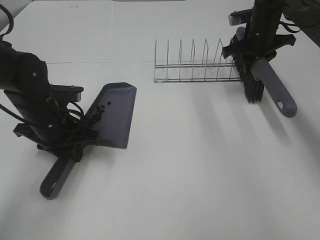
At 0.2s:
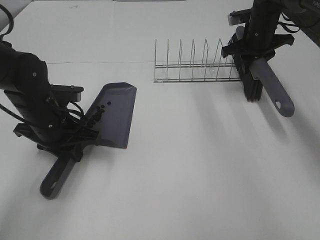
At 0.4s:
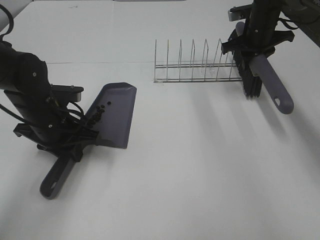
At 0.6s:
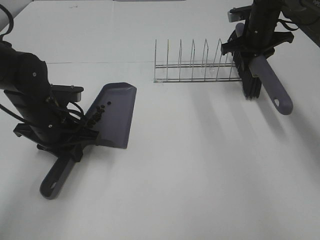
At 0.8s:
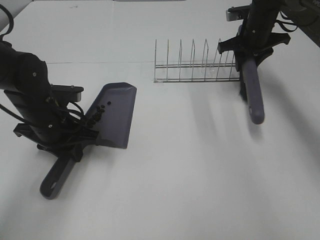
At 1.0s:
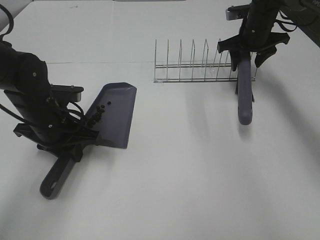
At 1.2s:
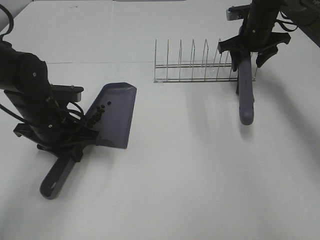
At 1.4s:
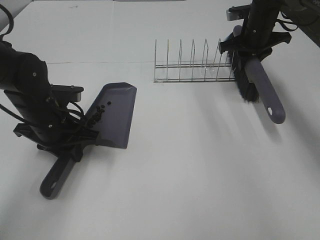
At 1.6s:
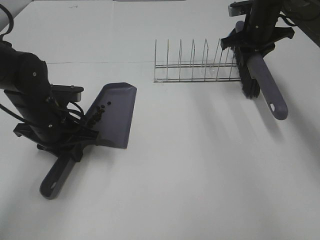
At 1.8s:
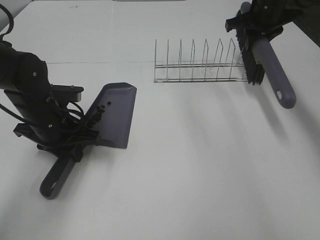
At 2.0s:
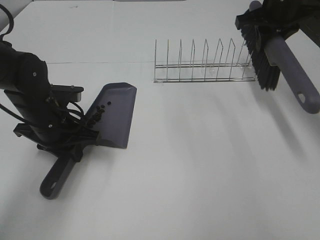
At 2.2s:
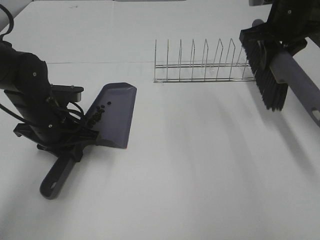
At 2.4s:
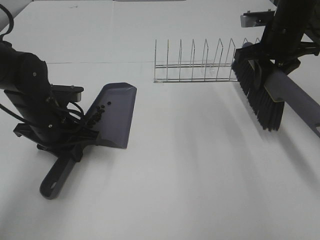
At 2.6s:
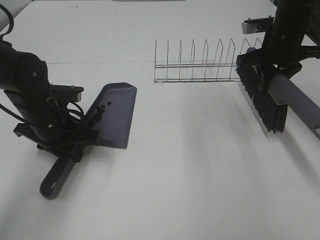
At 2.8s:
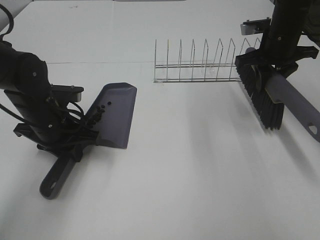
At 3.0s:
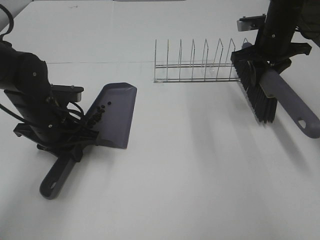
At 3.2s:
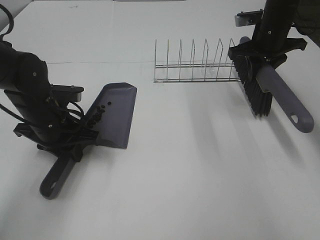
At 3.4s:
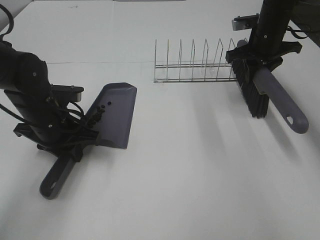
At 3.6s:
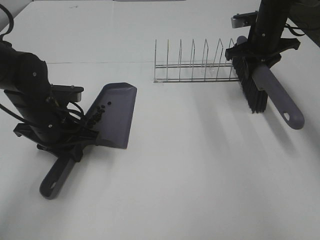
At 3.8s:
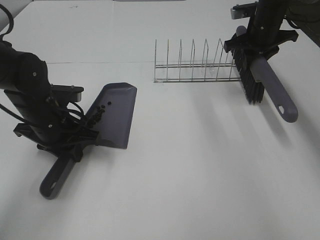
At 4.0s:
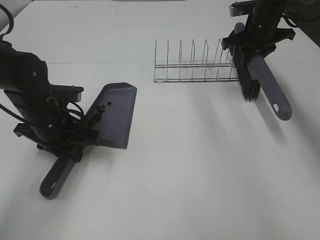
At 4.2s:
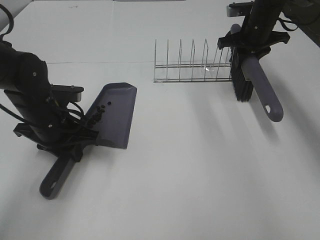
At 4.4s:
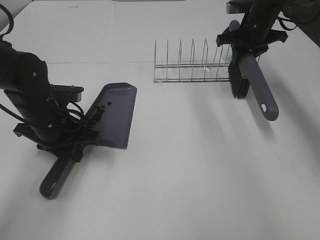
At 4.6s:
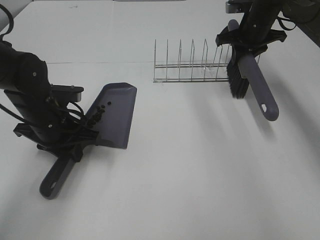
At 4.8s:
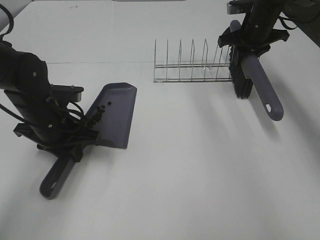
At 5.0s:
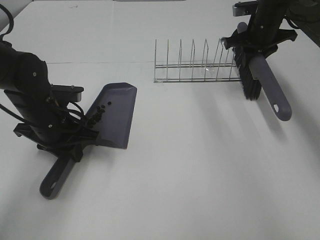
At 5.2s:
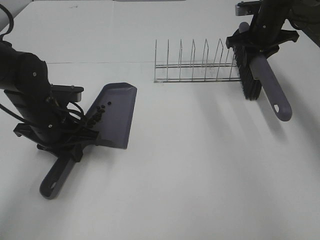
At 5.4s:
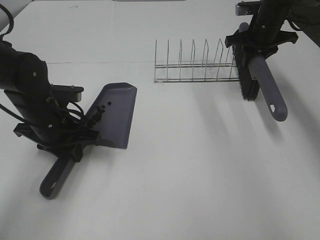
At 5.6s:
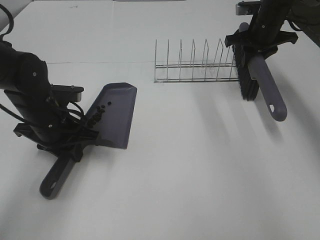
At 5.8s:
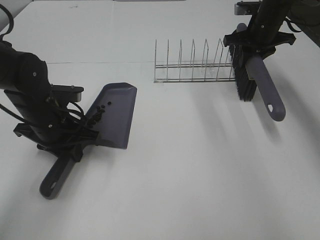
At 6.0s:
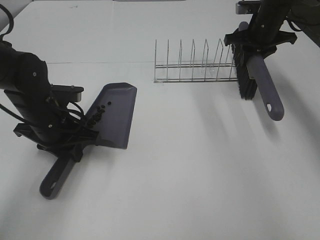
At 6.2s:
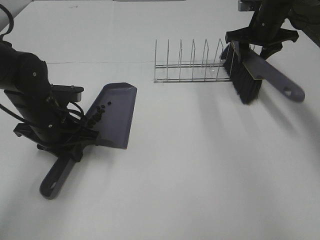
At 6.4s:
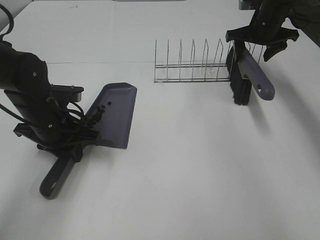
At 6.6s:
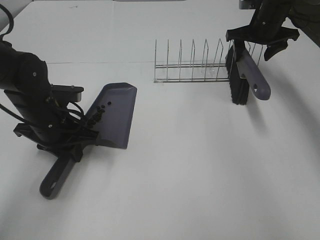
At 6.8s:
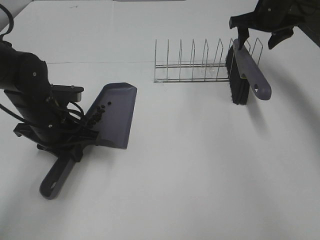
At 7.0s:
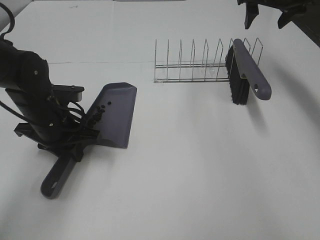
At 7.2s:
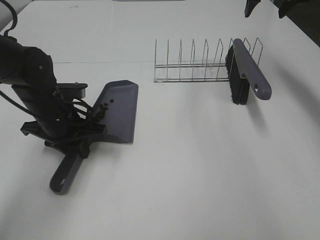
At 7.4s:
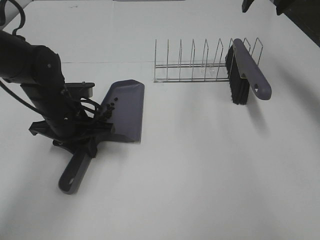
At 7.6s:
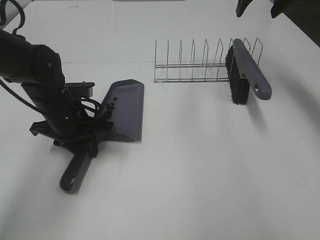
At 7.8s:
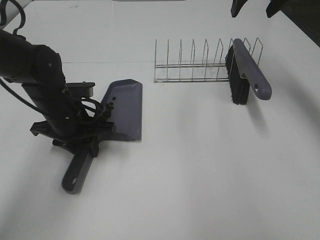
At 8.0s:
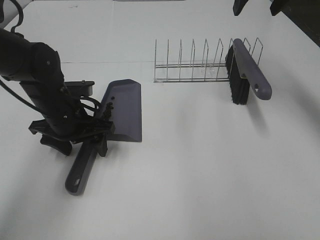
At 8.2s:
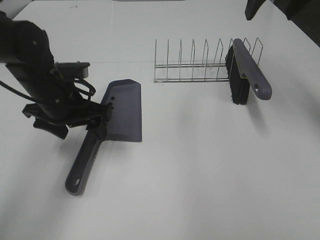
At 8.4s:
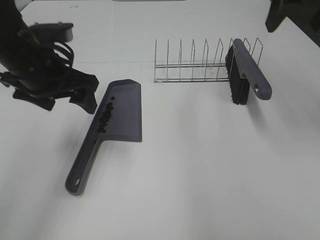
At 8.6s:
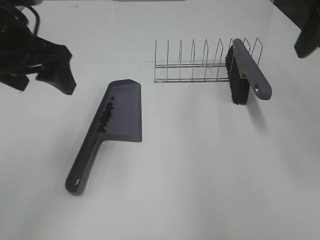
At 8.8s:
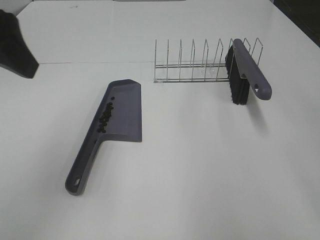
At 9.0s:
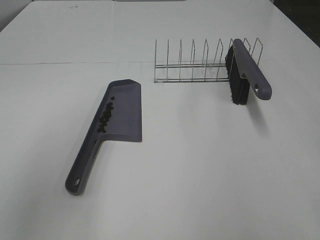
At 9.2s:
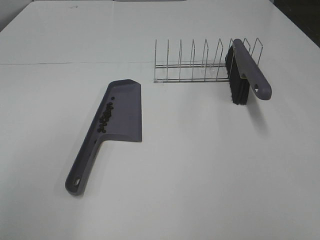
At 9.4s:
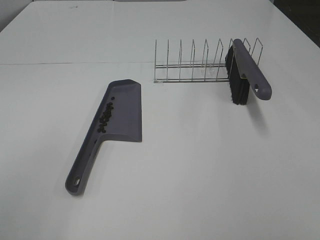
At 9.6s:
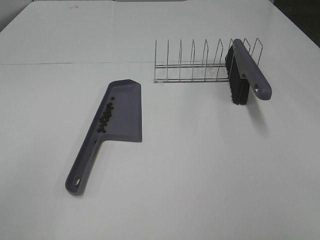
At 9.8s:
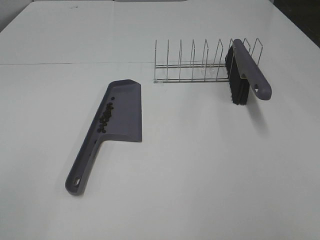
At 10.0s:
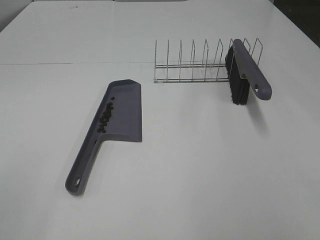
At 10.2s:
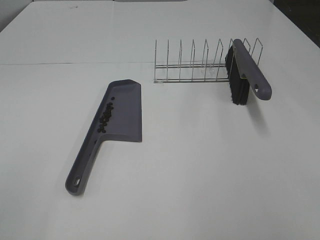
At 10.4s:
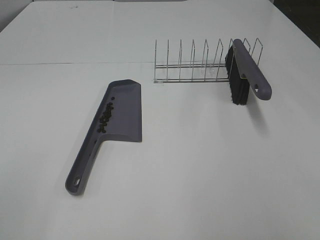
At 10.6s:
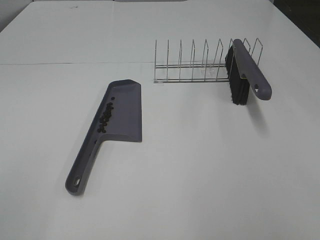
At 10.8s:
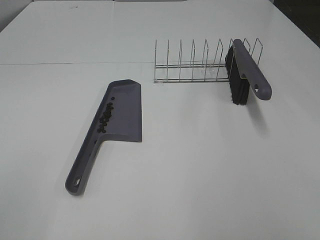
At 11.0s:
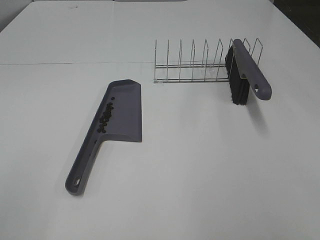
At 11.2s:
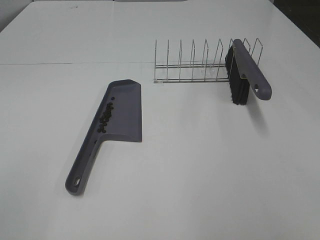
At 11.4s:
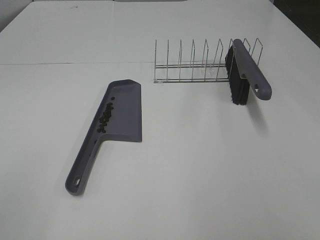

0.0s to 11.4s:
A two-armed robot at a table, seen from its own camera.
Task of the whole recording: Sweep Coffee Bean.
Step, 0.0s to 6.6s: Right hand:place the broom on the rack.
Step, 6.8s to 8.0s: Left hand:place the dustpan on the table.
0.0s to 1.4s: The right gripper opens, then closes again.
1.4s to 2.8s: The right gripper travels backward by roughly 10 cm.
2.8s to 4.2s: The right gripper moves forward, roughly 10 cm.
4.2s to 5.6s: There are only small adjustments of the grippers.
5.6s to 7.2s: The right gripper shifts some 10 cm upward, and opens up.
7.2s to 8.6s: The right gripper shifts about 25 cm backward, while the left gripper goes some 20 cm upward, and opens.
8.6s to 10.0s: The right gripper moves backward, approximately 25 cm. Meanwhile the left gripper moves backward and to the left, approximately 30 cm.

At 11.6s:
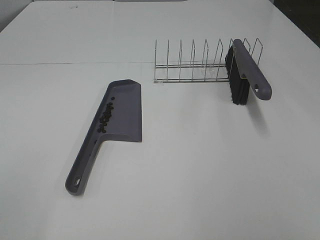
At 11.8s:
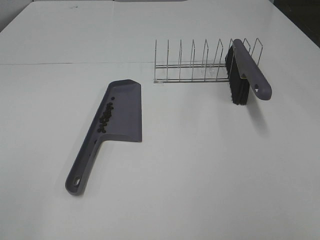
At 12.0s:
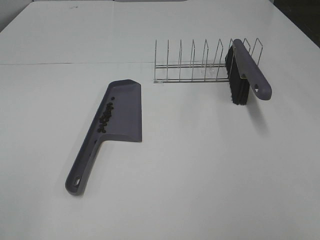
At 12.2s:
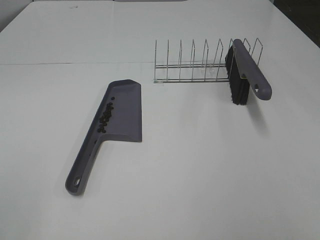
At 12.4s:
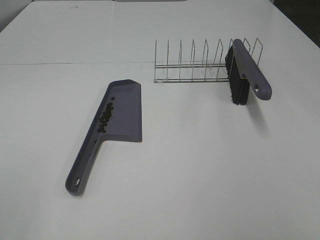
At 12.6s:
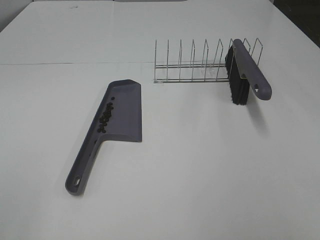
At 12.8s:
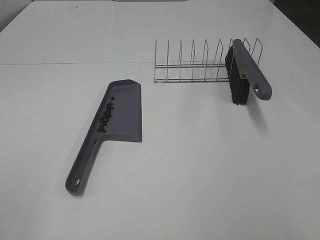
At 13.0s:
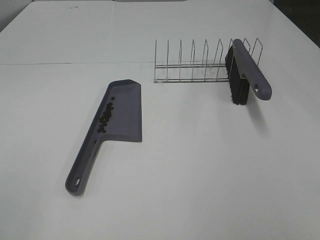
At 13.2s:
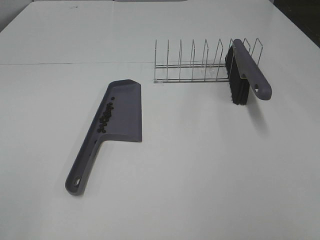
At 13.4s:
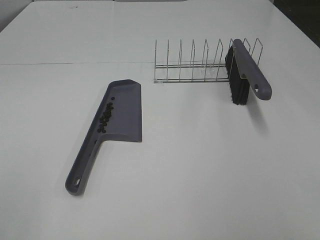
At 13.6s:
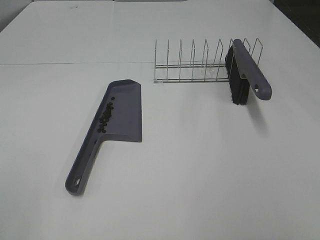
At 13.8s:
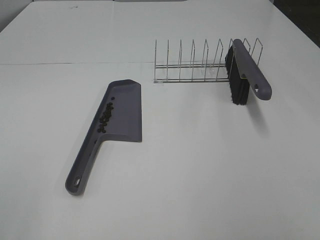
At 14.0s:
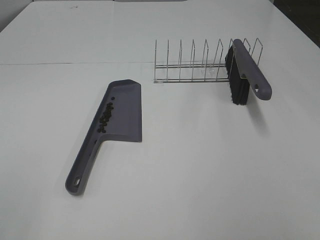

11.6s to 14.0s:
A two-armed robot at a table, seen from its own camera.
Task of the whole recording: Sweep Coffee Bean.
12.8s to 14.0s: Both grippers stay put.

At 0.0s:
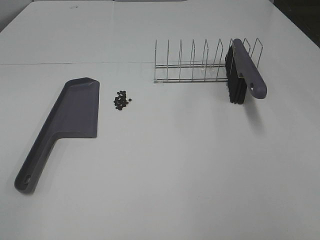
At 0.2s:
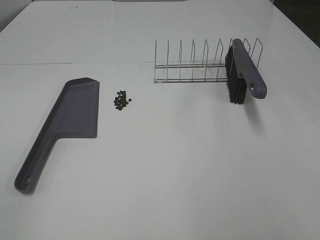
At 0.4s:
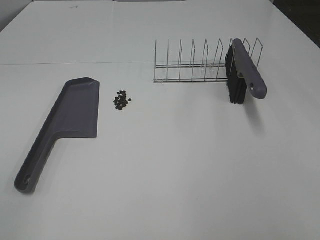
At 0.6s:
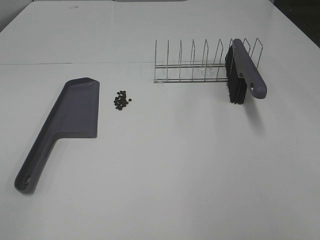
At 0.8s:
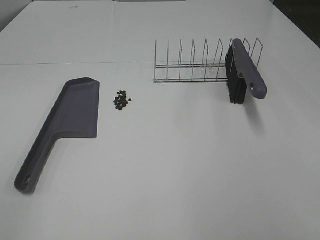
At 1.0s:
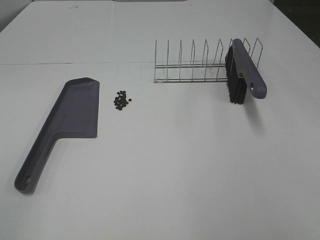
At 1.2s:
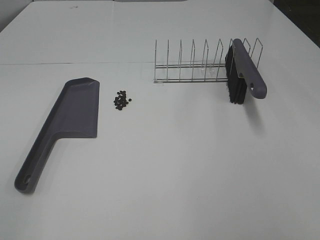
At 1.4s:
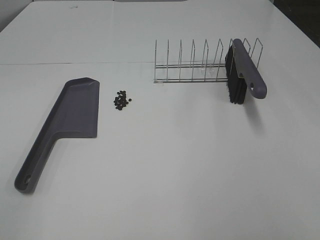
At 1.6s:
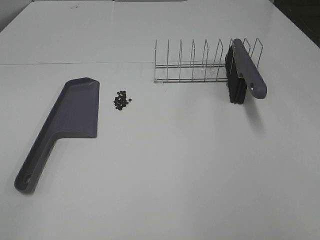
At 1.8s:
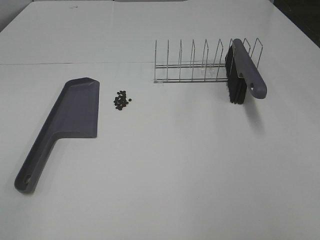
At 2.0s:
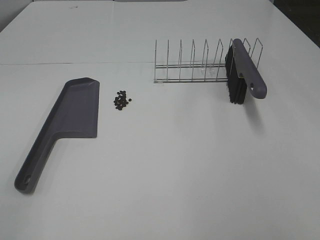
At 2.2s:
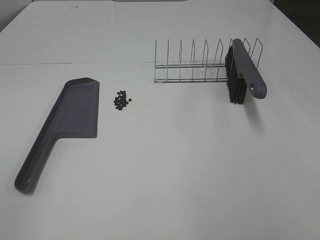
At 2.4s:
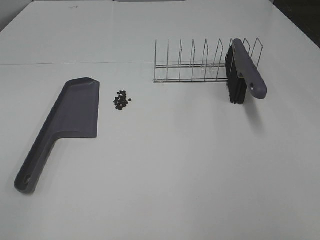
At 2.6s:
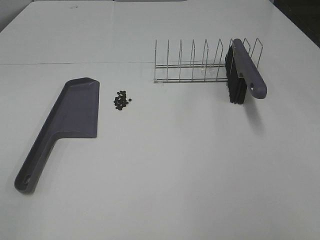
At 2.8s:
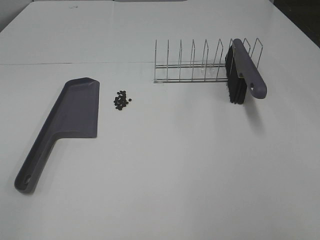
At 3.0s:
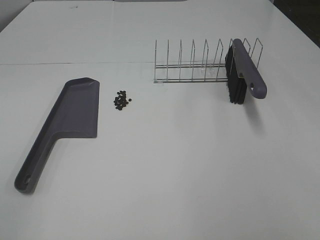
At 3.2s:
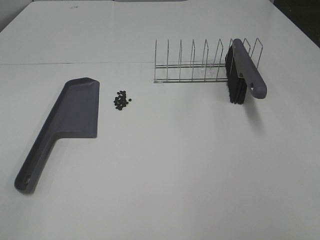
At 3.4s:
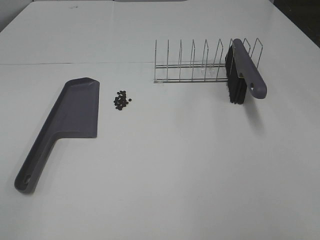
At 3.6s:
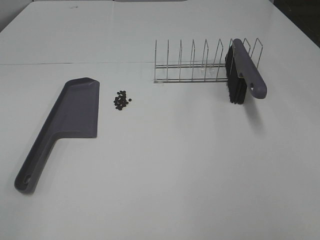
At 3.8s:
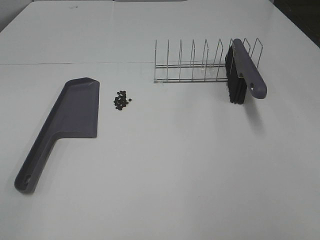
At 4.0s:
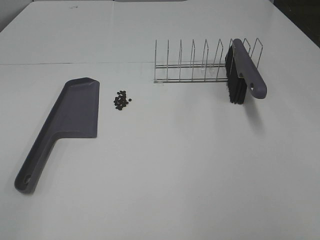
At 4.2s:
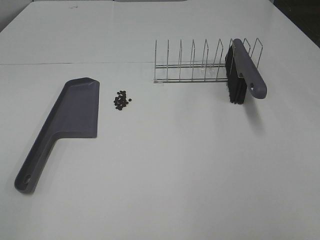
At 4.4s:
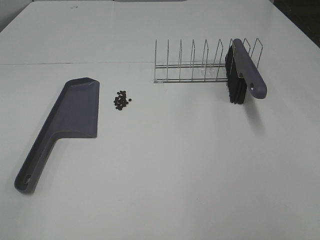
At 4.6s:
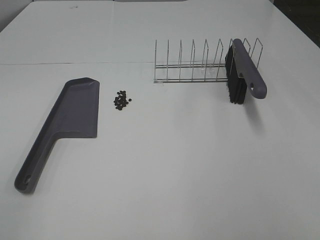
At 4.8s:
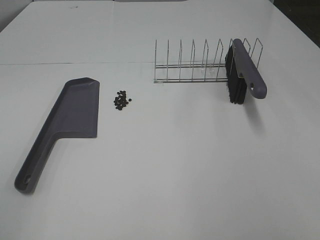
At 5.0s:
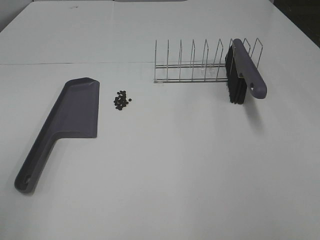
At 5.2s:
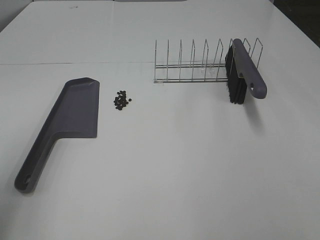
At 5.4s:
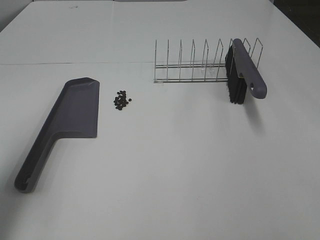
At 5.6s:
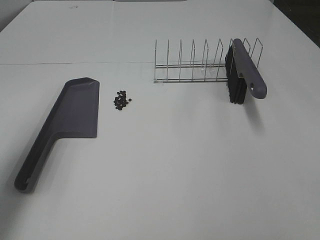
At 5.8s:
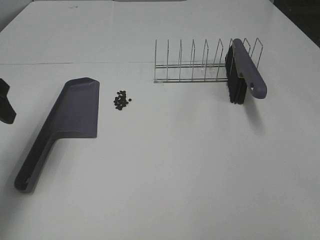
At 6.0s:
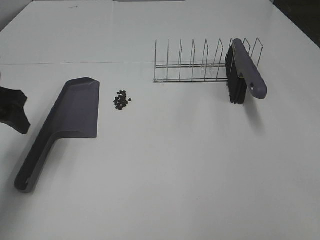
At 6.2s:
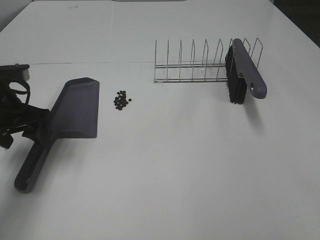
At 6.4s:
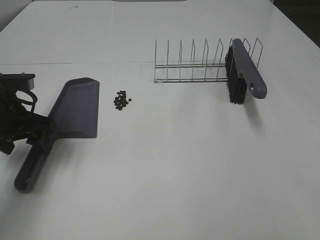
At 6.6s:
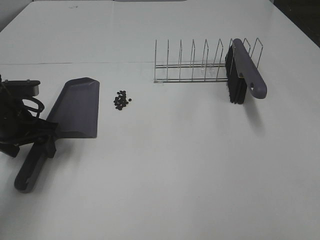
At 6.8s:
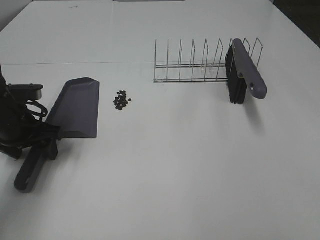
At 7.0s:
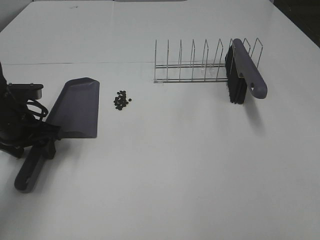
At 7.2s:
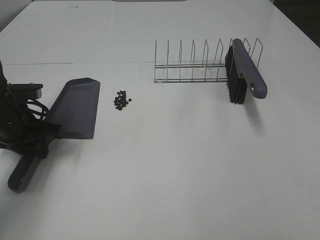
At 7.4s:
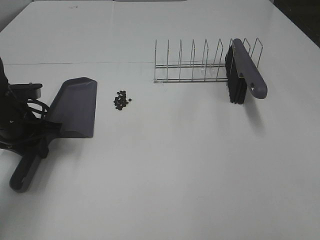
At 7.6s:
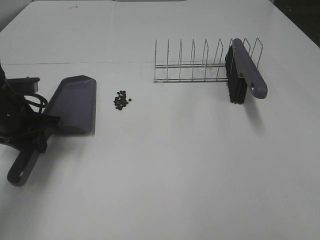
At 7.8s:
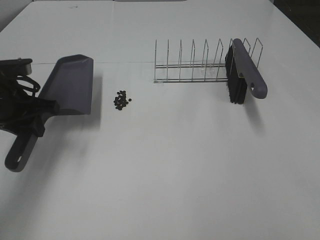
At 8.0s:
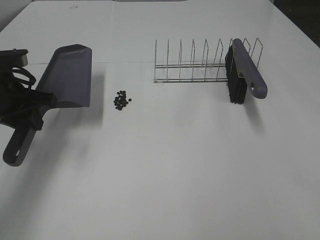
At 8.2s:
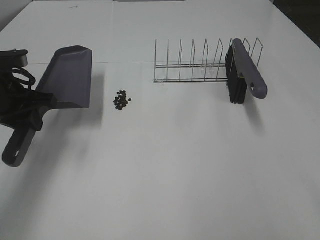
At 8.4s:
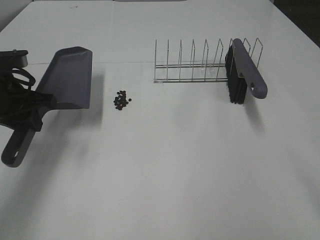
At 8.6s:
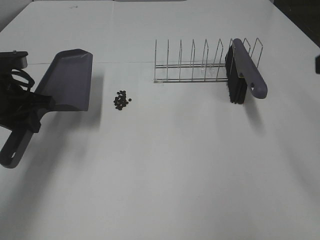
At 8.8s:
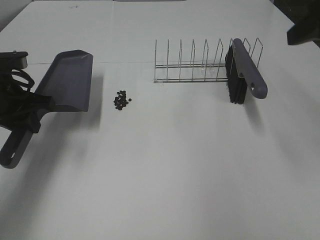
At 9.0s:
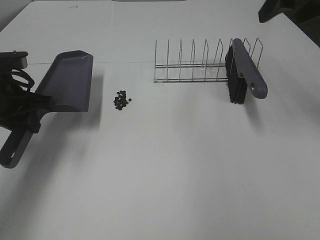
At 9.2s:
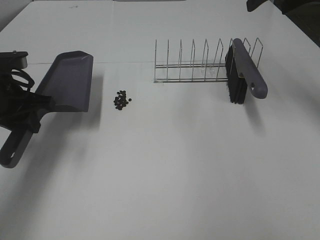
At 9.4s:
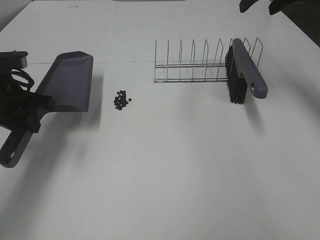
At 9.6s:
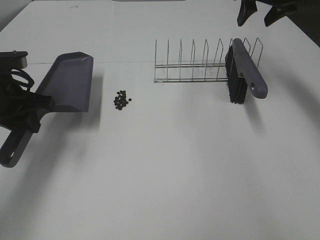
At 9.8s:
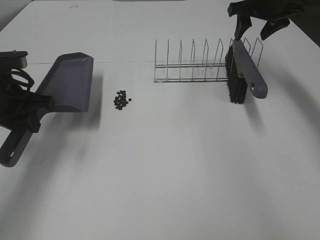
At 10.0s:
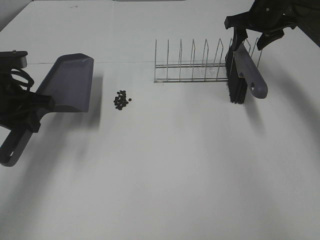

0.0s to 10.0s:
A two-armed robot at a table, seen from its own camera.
Task of the whole recording: Sweep Coffee Bean.
Step, 0.0s to 7.2s: Left hand: grab the dustpan.
0.0s to 4.2s: The two grippers keep their place.
4.2s to 5.8s: The left gripper goes some 30 cm forward.
5.8s to 7.2s: The left gripper goes approximately 15 cm downward, and closes its fingers.
7.2s to 8.6s: The left gripper goes approximately 5 cm upward.
8.6s to 10.0s: The right gripper travels forward by about 35 cm.
